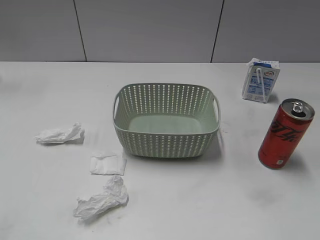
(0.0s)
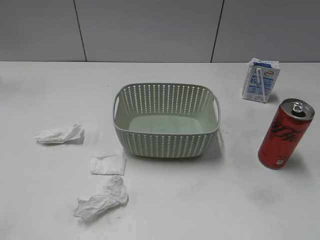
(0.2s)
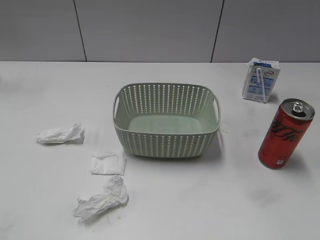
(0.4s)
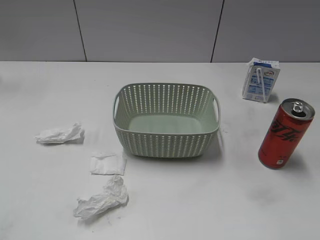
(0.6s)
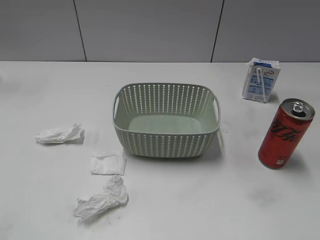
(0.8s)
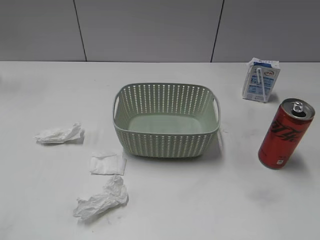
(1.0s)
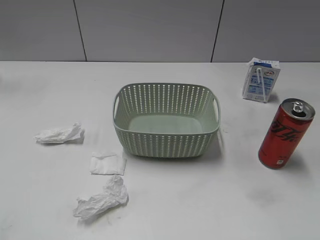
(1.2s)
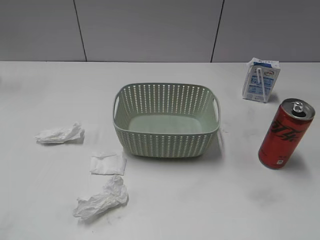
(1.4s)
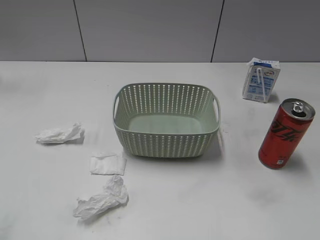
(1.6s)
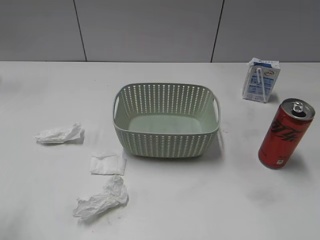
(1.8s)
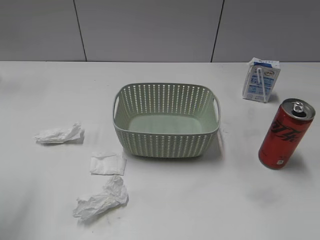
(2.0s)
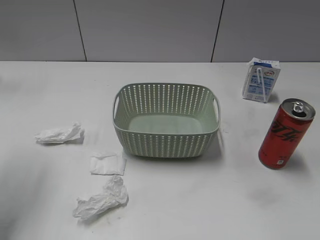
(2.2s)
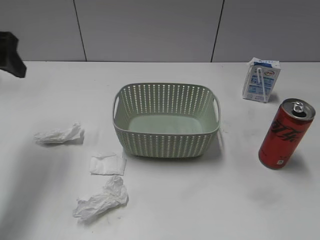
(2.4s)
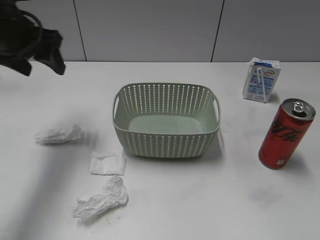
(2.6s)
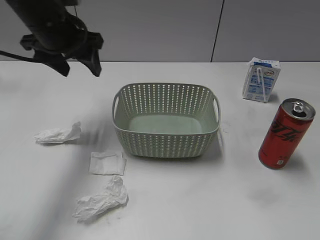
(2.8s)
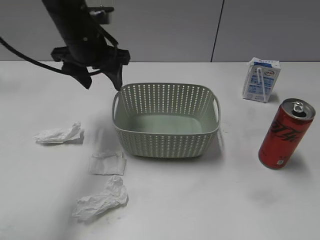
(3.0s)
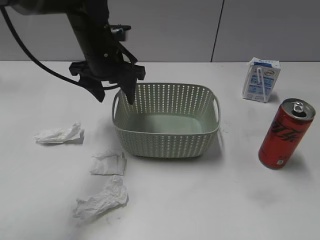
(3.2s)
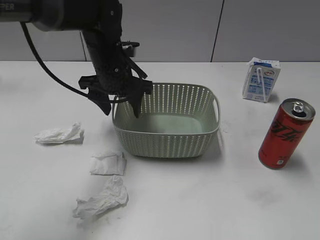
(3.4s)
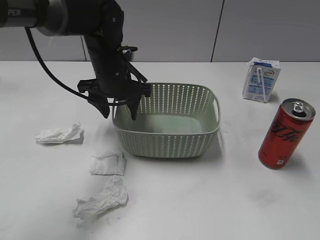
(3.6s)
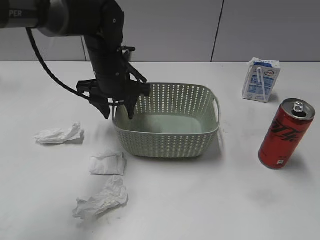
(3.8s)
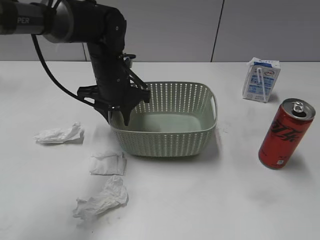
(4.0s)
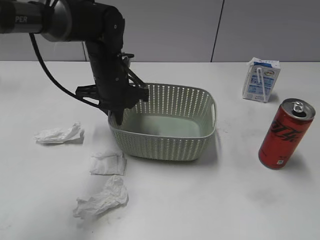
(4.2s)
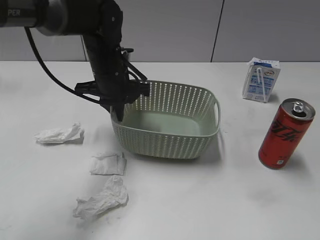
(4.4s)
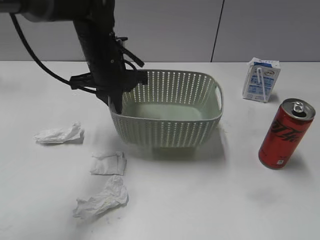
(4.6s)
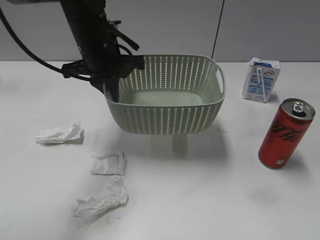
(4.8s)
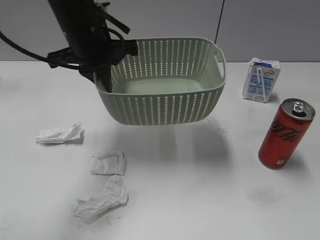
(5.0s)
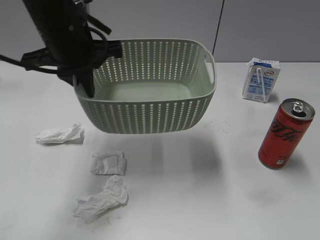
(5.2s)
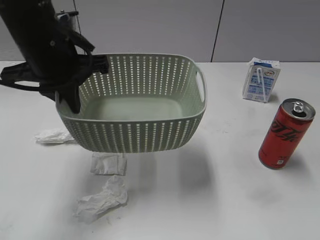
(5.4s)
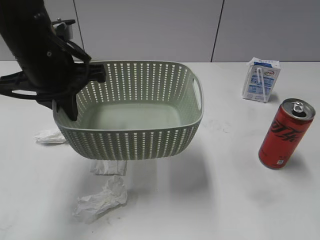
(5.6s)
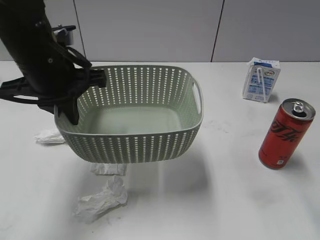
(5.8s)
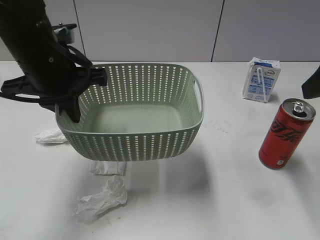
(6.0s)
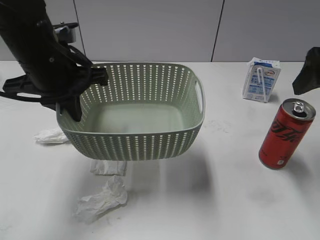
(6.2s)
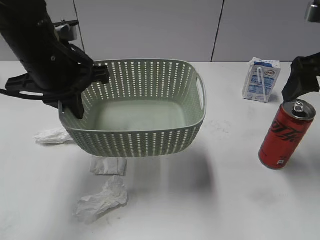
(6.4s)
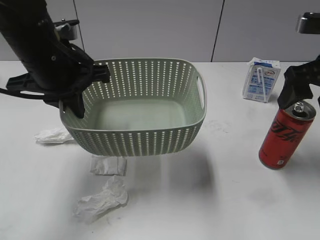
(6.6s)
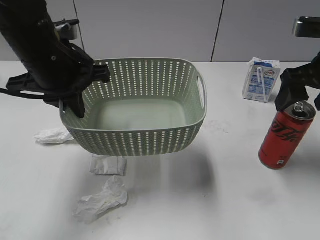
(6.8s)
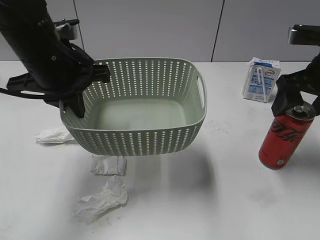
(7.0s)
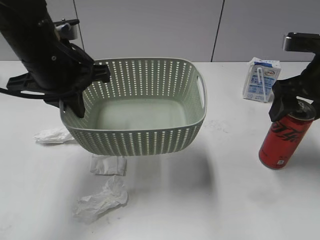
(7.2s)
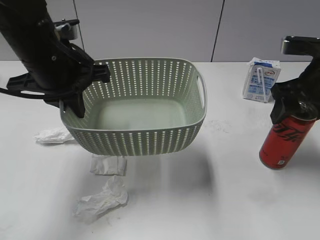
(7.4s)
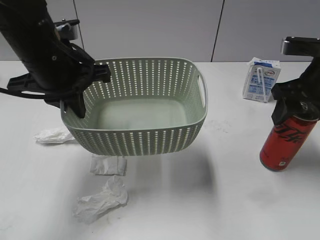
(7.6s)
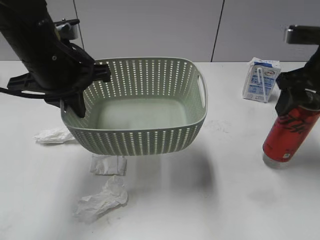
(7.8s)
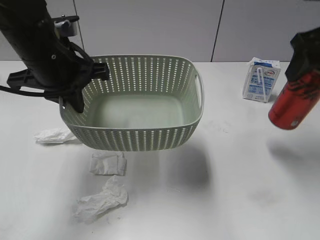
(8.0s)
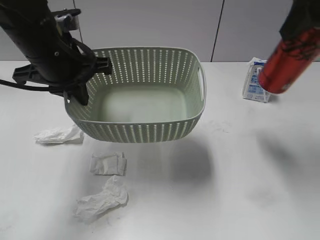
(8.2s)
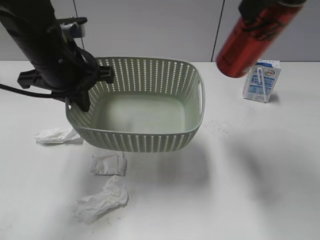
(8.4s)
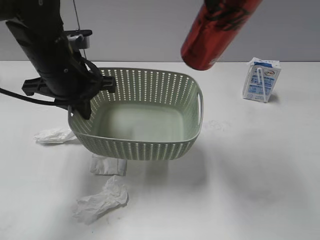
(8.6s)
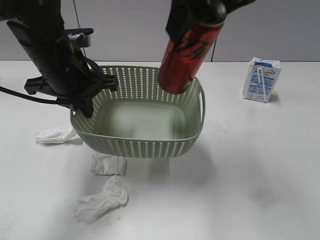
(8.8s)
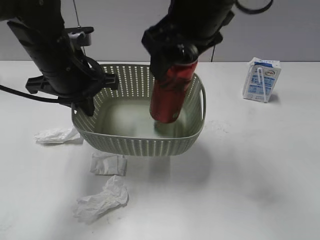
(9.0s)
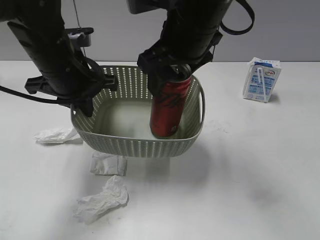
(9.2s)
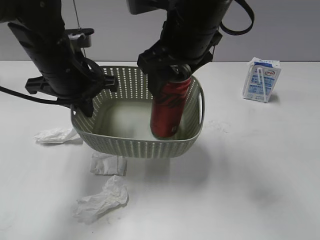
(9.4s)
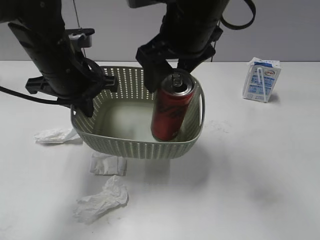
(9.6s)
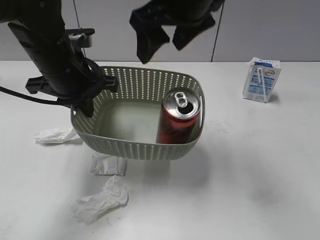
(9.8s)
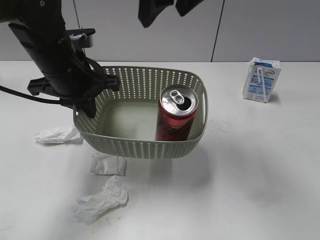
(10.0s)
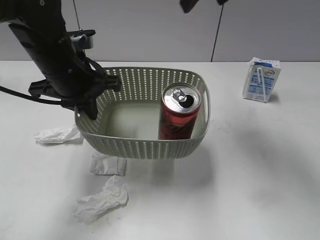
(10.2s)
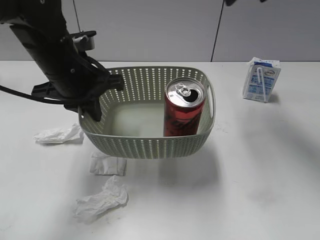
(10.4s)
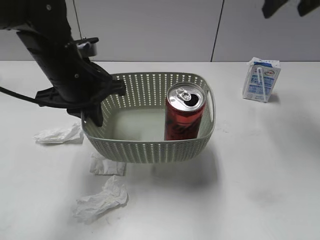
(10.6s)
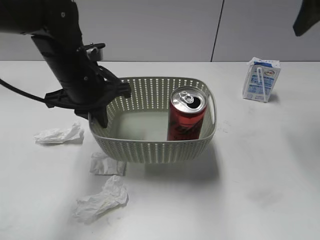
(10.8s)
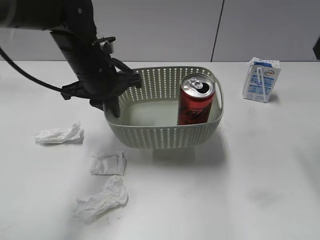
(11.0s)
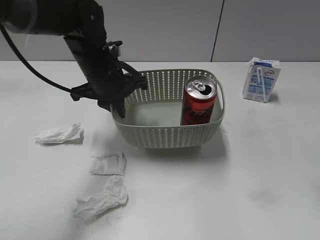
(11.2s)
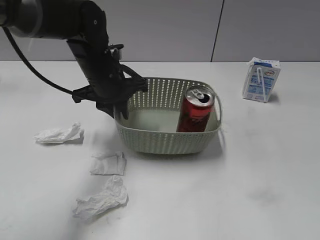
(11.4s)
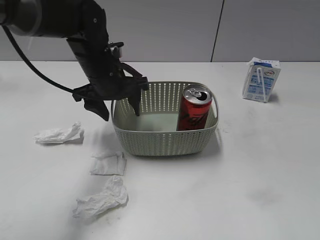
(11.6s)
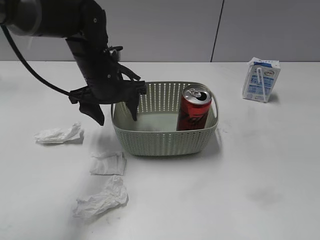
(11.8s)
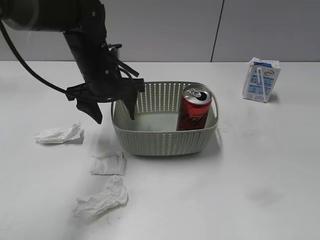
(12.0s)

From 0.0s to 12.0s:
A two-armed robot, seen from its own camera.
Step, from 2.4s to 4.2s: Grasp the basket with left gripper.
Step, from 4.4s to 5.8s: Lift the basket with left gripper.
Step, from 6.0s to 7.4s: Grasp the cola can with right gripper.
Step, from 7.6s to 9.6s: Place the cola can in the basket with right gripper.
Step, from 9.8s to 11.8s: Place the basket on the table with left gripper.
From 1.6s to 3.0s: The left gripper heads forward and to the right, covering some 40 cm.
From 3.0s to 4.4s: The left gripper moves downward, approximately 5 cm, and closes its fingers.
From 4.4s to 6.0s: The right gripper is displaced forward by about 20 cm, and opens its fingers, while the left gripper is displaced backward, upward and to the left by approximately 15 cm.
From 6.0s to 7.6s: The right gripper moves forward and downward, roughly 15 cm, and closes.
From 7.6s to 9.0s: The right gripper heads to the left and upward, covering about 25 cm.
From 9.0s to 10.4s: The right gripper goes some 15 cm to the right, forward and upward, and opens up.
From 10.4s to 12.0s: The right gripper shifts about 35 cm backward. Meanwhile the left gripper moves forward, approximately 5 cm, and opens its fingers.

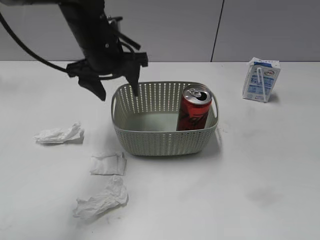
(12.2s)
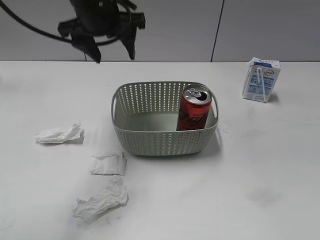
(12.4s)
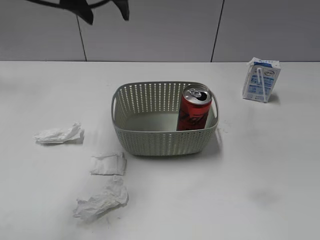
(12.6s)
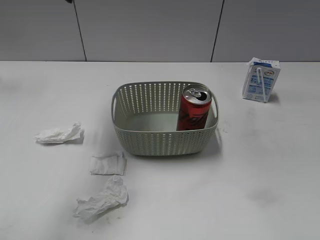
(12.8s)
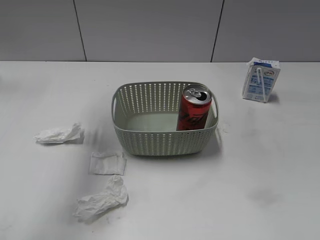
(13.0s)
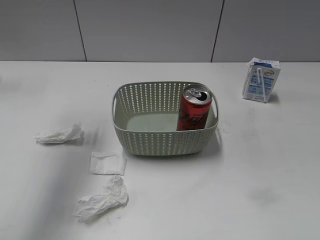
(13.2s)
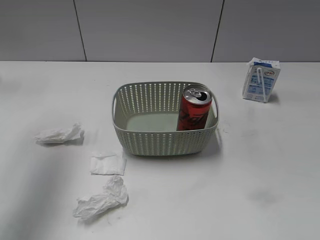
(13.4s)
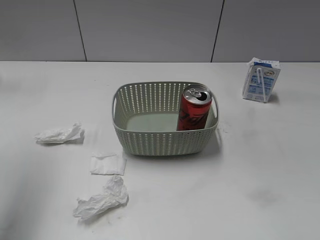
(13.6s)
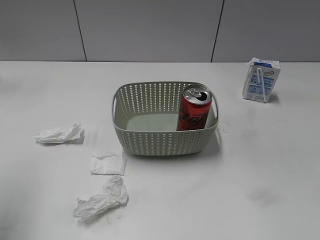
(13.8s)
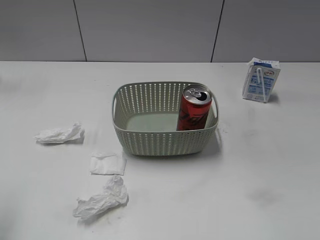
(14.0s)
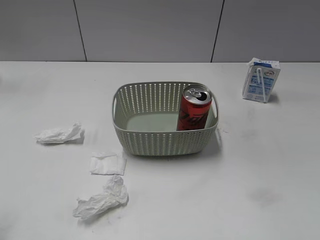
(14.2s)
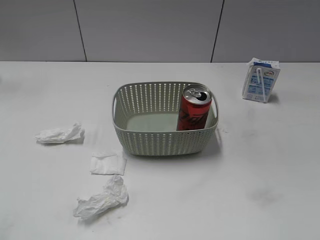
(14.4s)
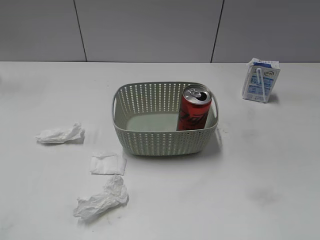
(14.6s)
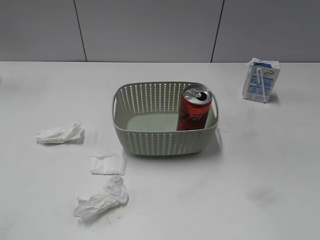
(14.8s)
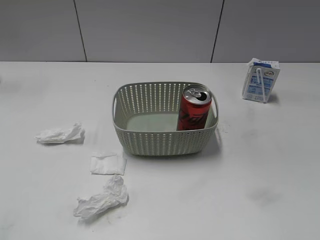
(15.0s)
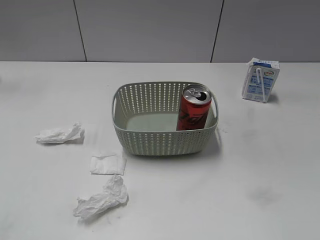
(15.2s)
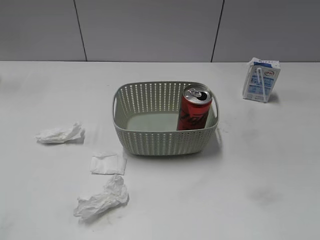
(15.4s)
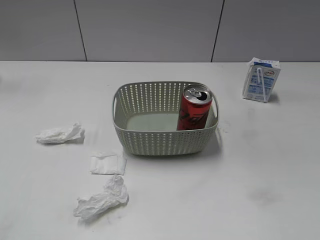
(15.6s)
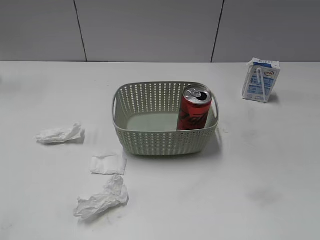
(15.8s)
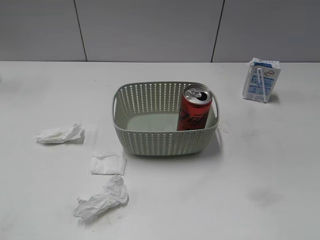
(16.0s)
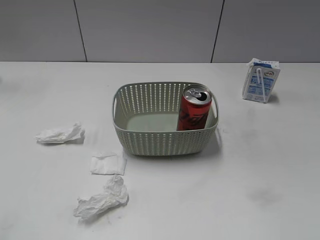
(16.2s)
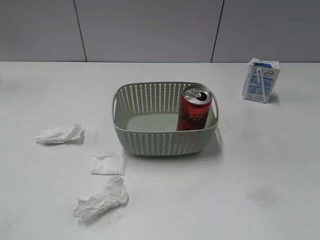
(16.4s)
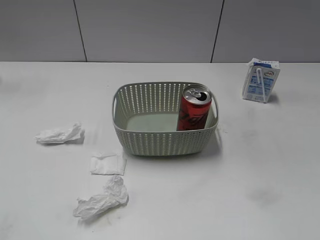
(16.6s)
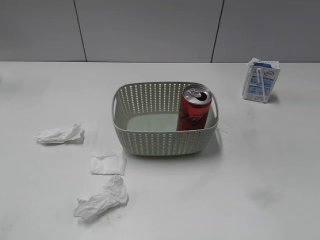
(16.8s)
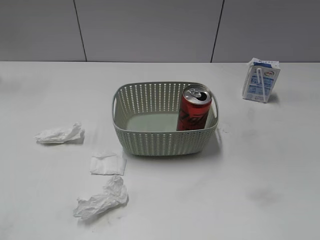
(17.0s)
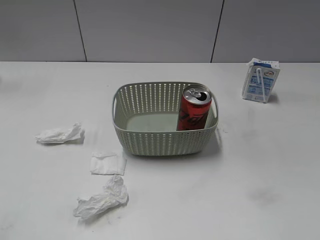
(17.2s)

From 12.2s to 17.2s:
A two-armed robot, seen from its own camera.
From 12.2s to 13.8s: The left gripper goes roughly 30 cm to the left, backward and upward.
From 13.8s to 15.6s: The left gripper is displaced backward and downward by about 25 cm, and closes.

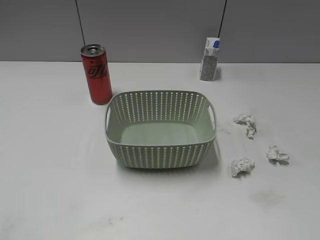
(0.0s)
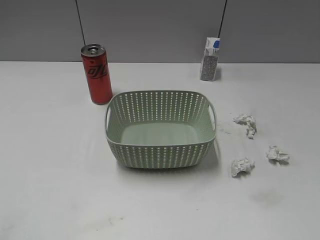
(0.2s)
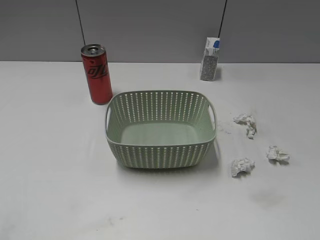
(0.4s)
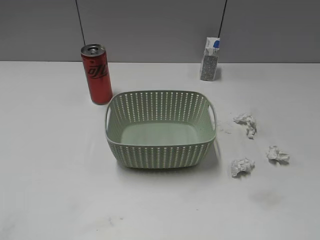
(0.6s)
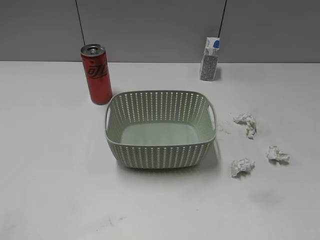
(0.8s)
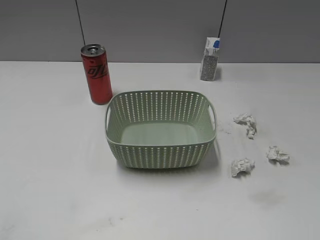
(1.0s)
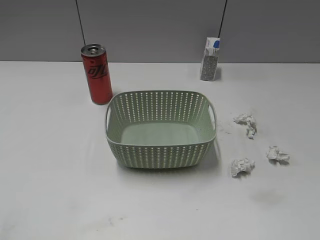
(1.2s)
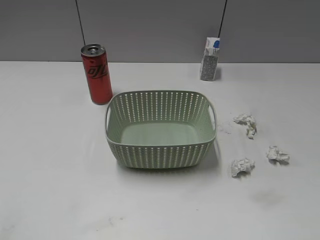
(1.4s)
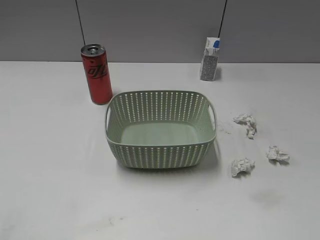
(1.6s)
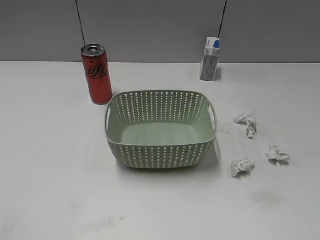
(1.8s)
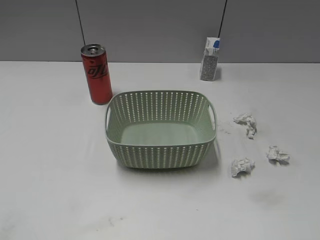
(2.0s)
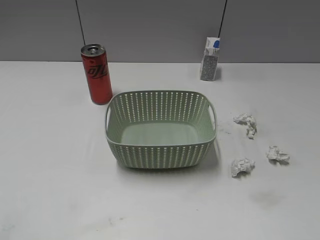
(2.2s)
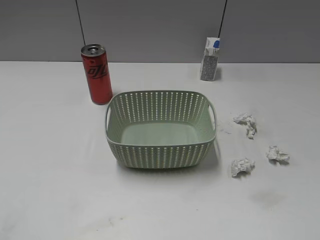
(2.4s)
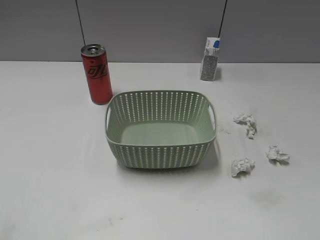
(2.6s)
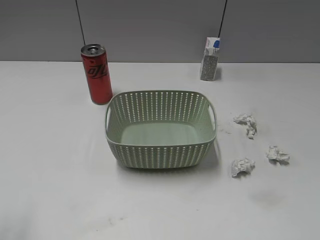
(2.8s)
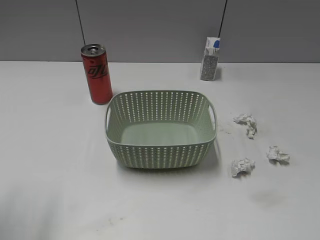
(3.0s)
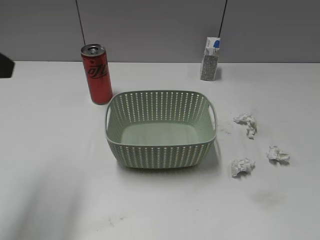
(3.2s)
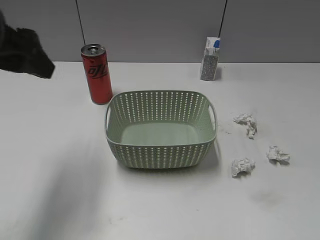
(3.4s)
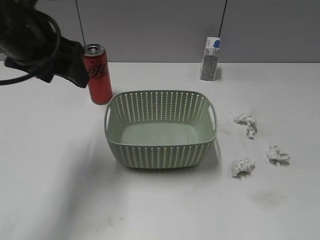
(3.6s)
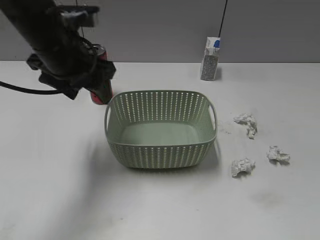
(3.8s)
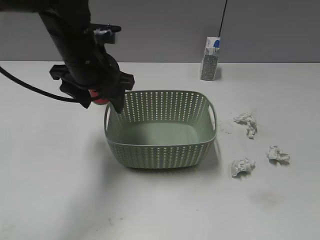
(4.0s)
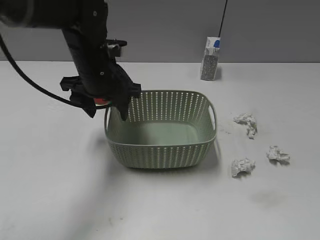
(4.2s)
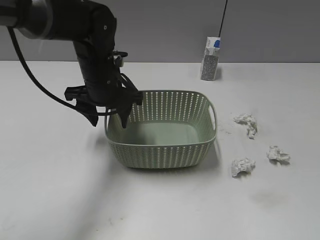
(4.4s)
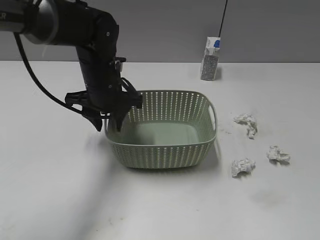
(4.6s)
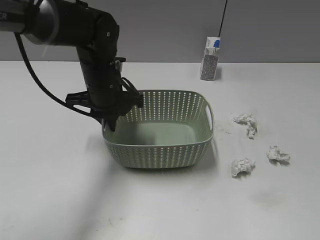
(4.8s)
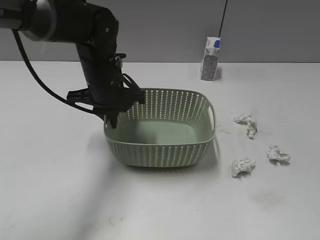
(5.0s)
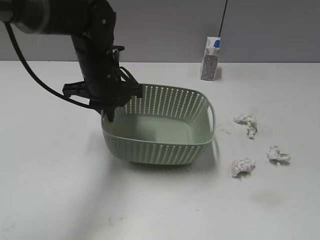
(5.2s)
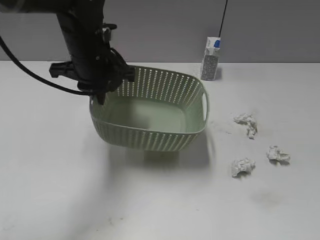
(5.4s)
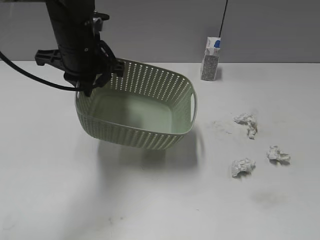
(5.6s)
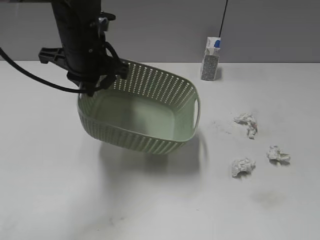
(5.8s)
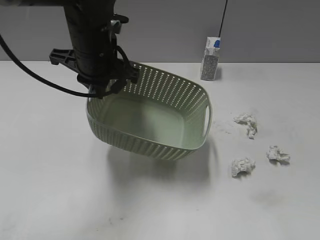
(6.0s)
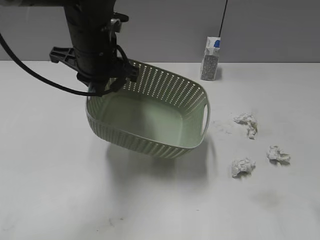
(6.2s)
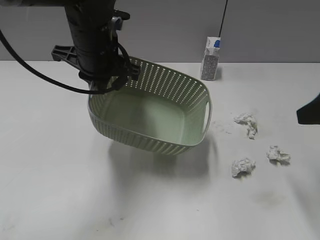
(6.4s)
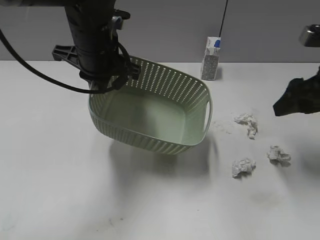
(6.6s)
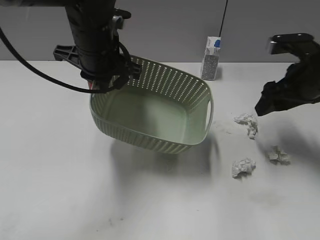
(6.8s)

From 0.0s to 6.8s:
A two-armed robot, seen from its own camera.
Step, from 2.0s to 4.8s: Grasp the basket with left gripper.
Step, from 5.0s to 6.0s: Lift the basket with left gripper.
From 2.8s to 4.0s: The left gripper goes roughly 30 cm forward and to the right.
From 4.0s to 5.4s: The left gripper closes.
From 5.4s to 6.8s: The right gripper goes some 35 cm forward.
